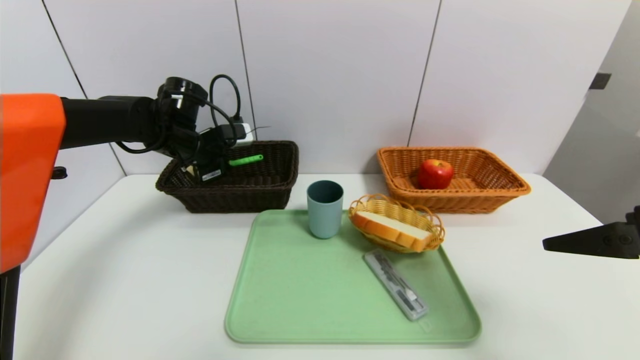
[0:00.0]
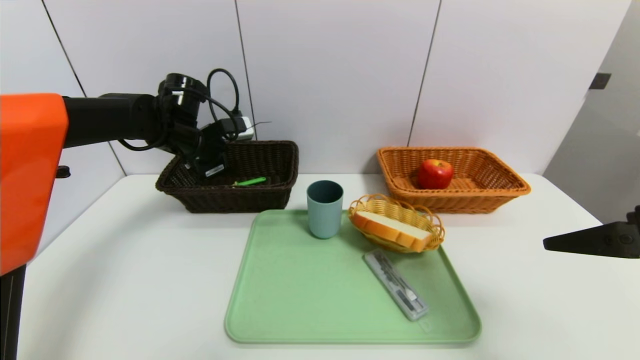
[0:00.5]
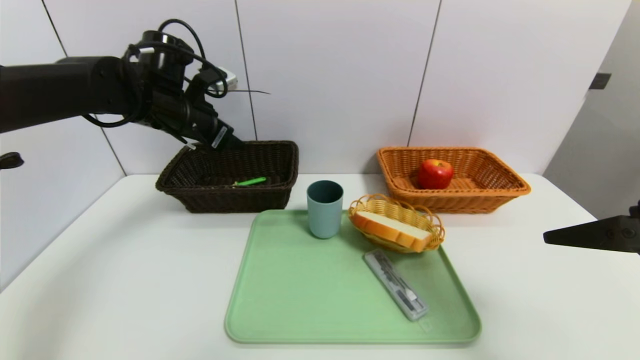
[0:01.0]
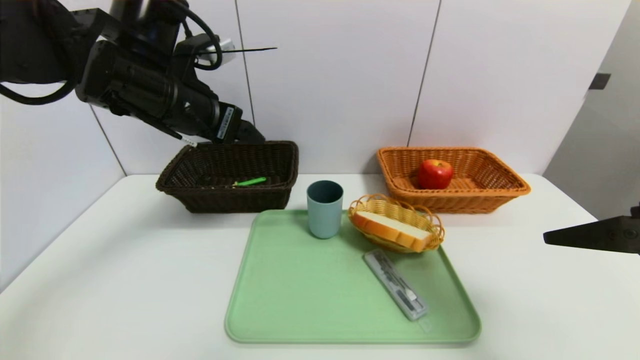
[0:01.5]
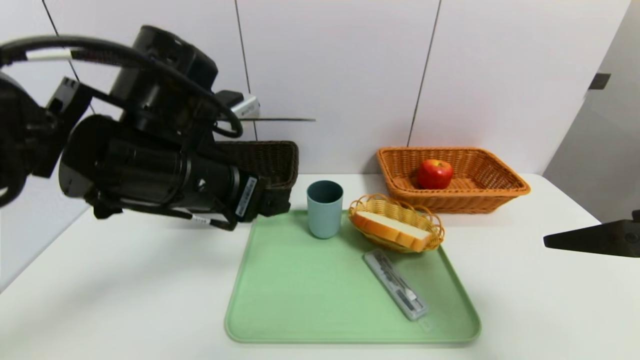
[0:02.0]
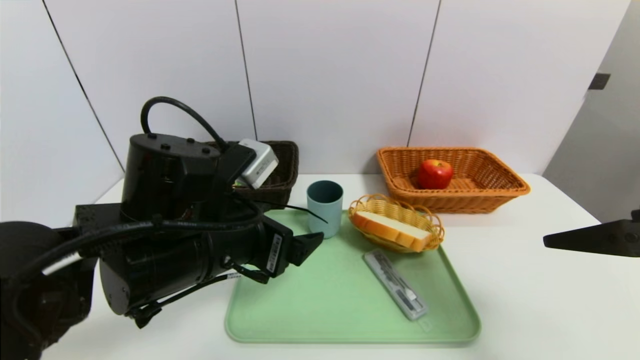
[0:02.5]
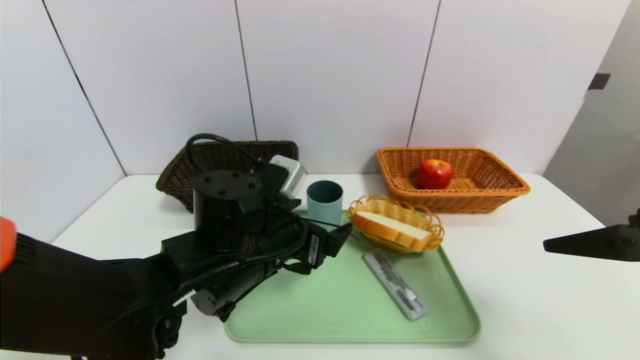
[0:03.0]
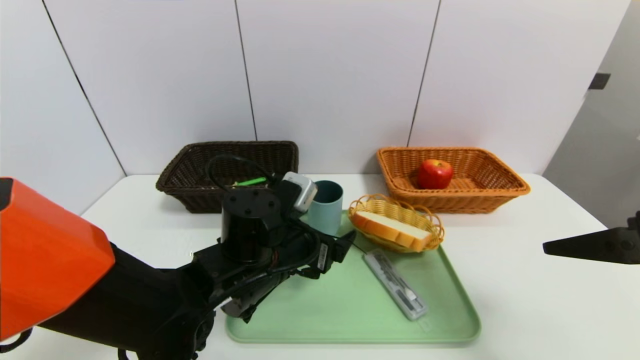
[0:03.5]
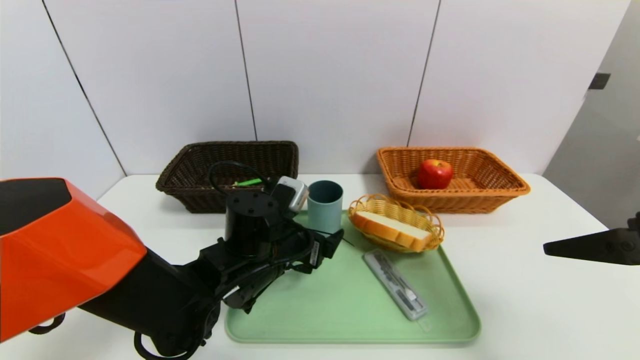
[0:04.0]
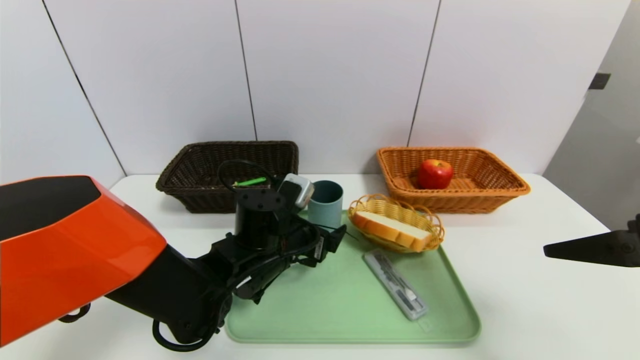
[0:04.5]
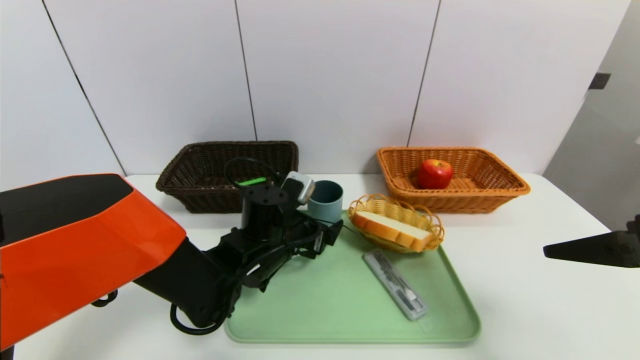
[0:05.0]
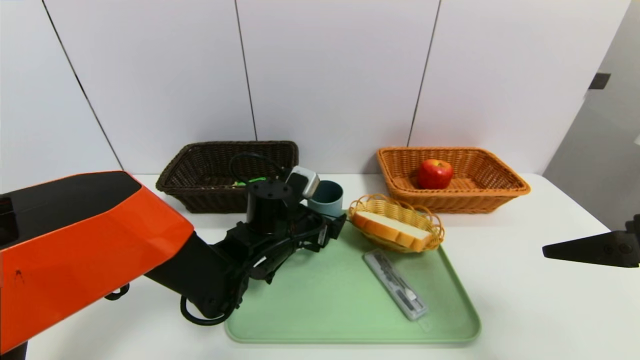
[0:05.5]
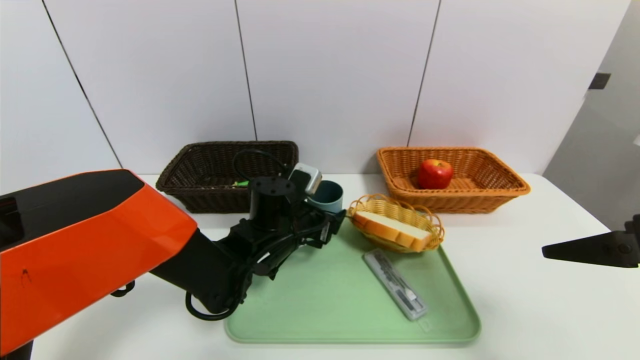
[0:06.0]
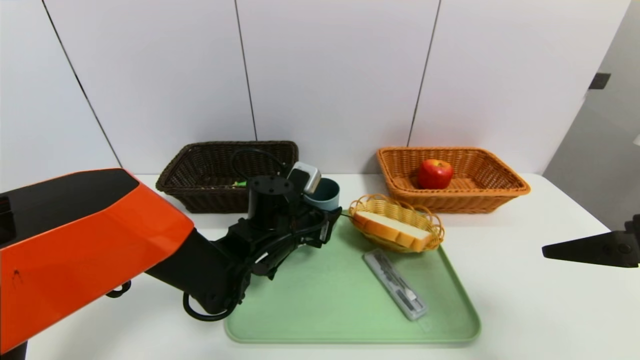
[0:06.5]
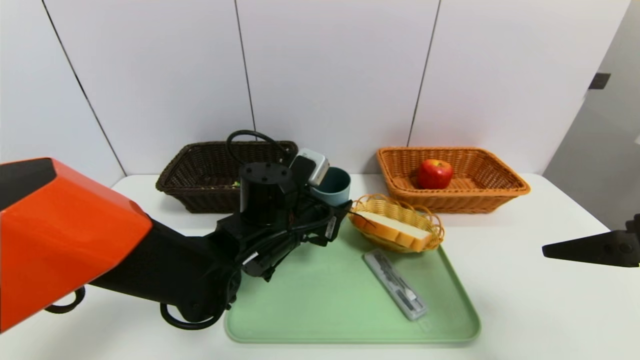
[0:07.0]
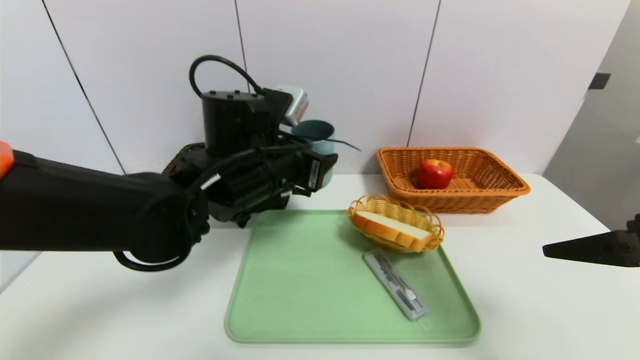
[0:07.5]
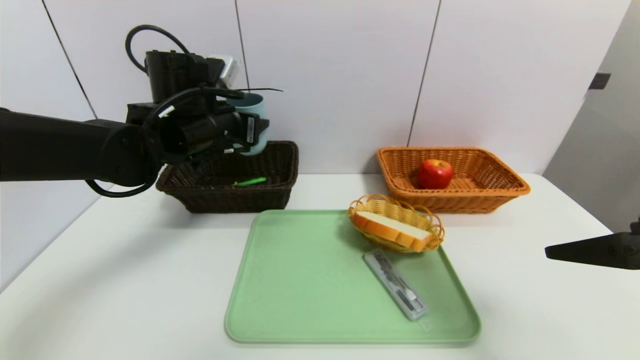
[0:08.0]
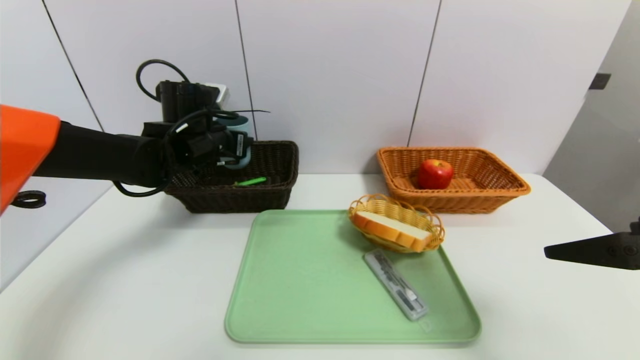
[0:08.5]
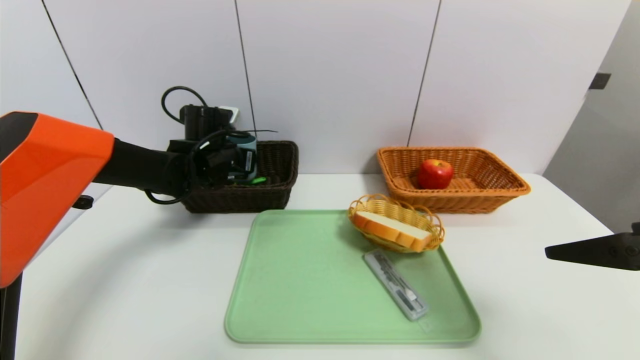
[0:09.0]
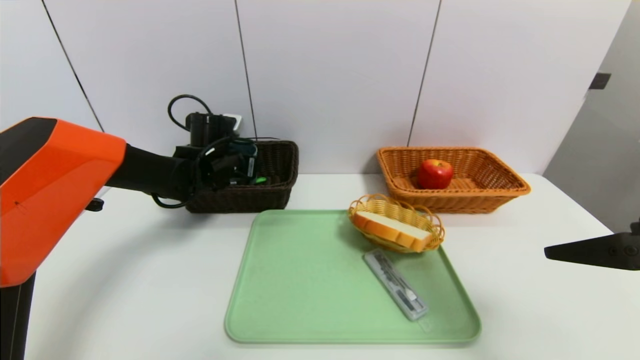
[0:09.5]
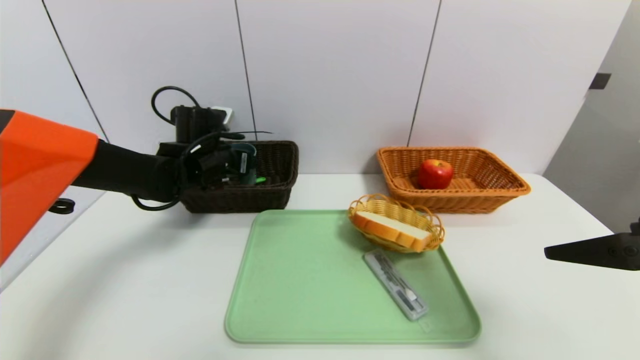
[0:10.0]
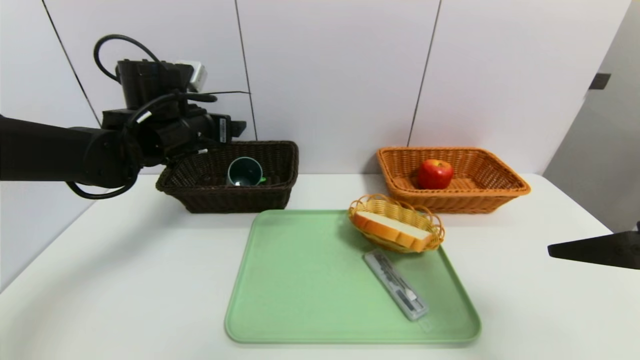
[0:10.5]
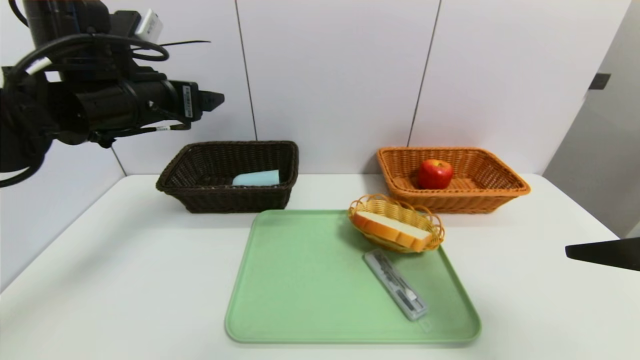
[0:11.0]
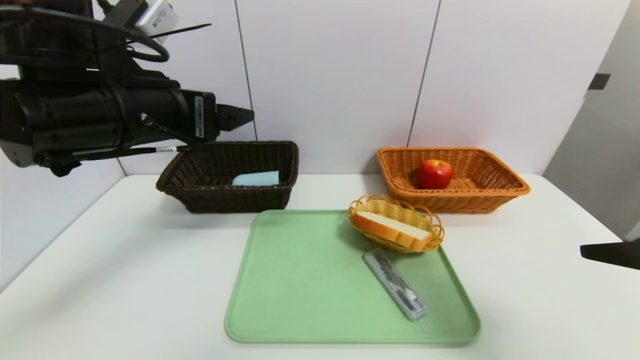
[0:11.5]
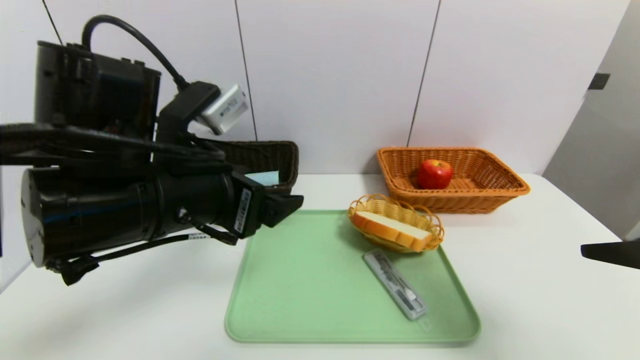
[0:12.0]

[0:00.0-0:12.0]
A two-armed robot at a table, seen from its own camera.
Task of the whole recording: place the food in the right basket with the right gripper, and place the non food items in the left basket with the left gripper.
Step, 0:01.5 to 0:10.0: Grasp the blue cup and put it in the left basket.
0:00.0 to 0:02.0: The left gripper goes some 25 cm backward and to the right, and opens its fingers.
0:02.0 to 0:04.0: The left gripper goes some 15 cm downward.
0:04.0 to 0:06.0: The left gripper ends up some 5 cm from where it was.
0:06.0 to 0:08.0: The left gripper heads upward and to the left, covering approximately 20 cm.
0:08.0 to 0:10.0: The left gripper shifts approximately 10 cm downward and forward.
0:10.0 to 0:12.0: The left gripper heads backward, covering roughly 25 cm.

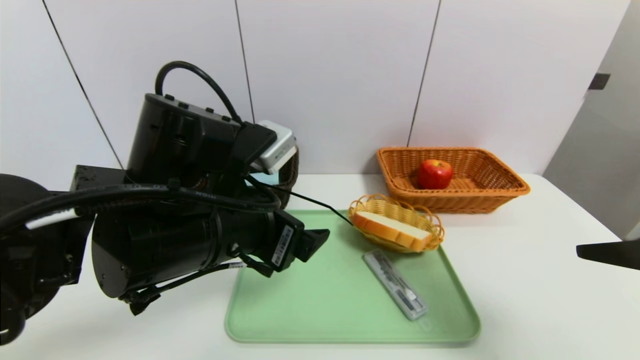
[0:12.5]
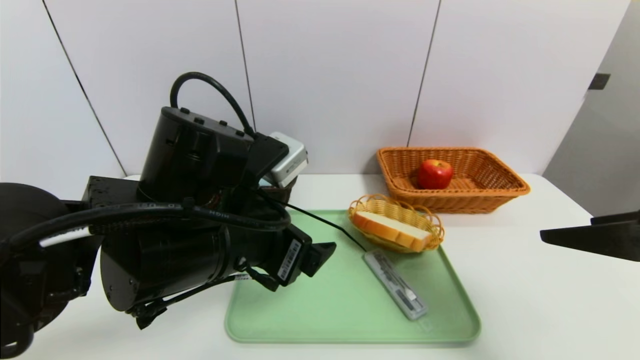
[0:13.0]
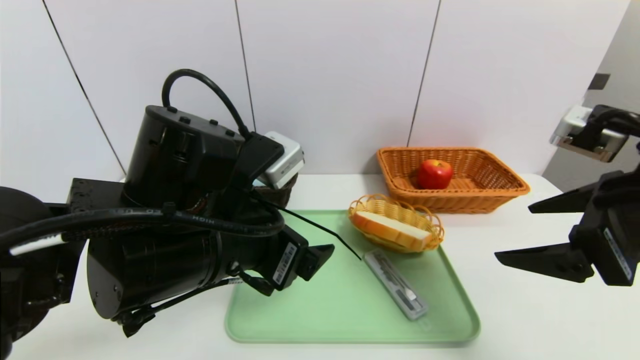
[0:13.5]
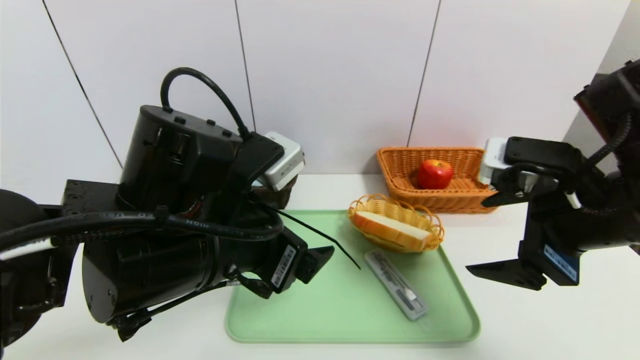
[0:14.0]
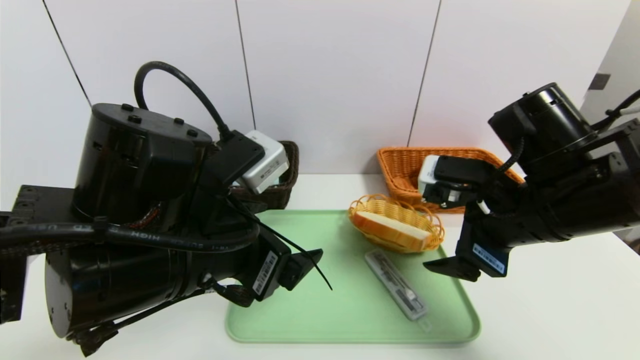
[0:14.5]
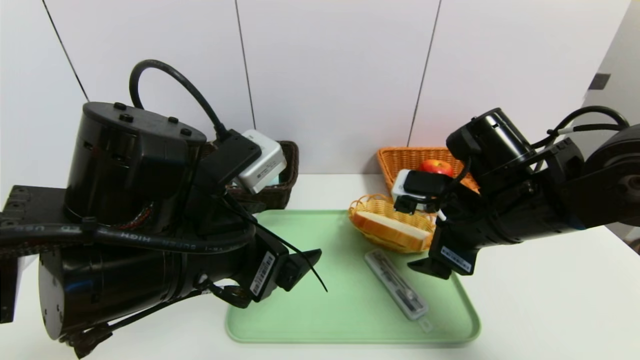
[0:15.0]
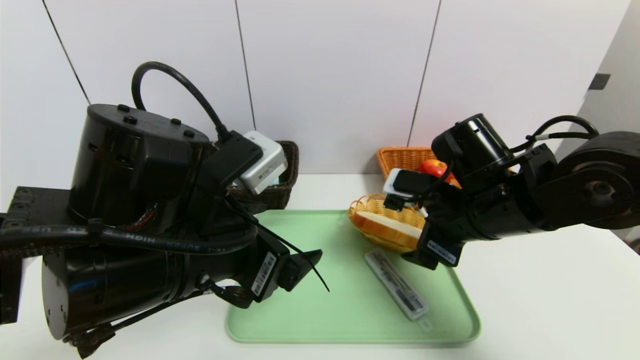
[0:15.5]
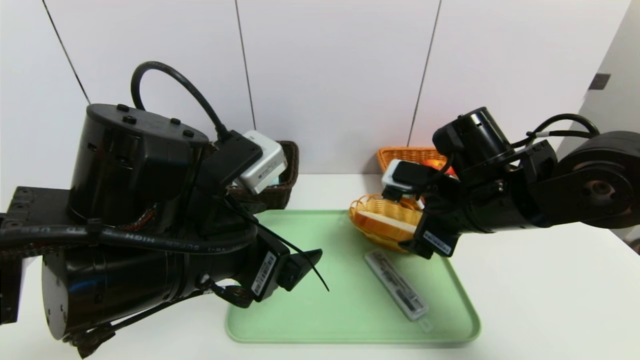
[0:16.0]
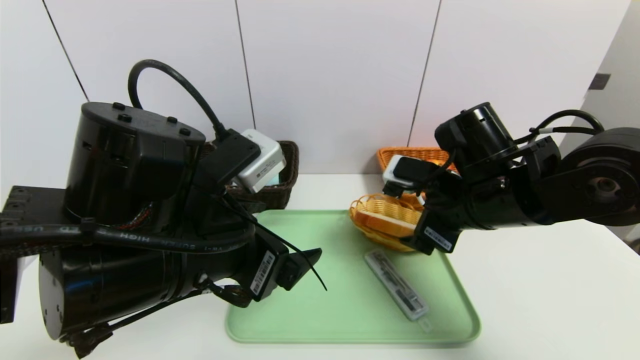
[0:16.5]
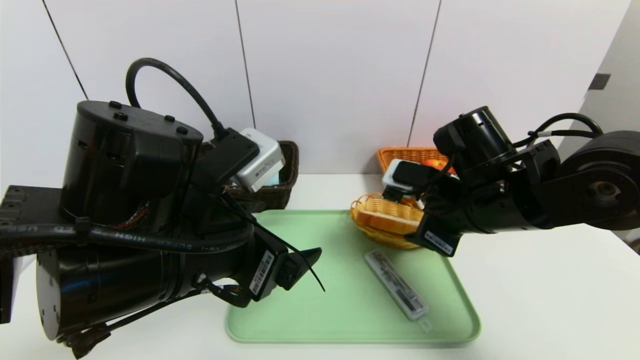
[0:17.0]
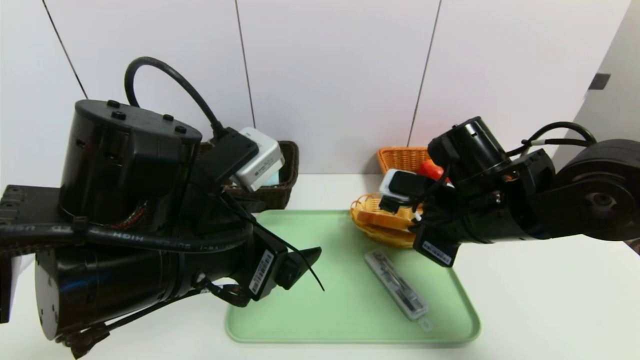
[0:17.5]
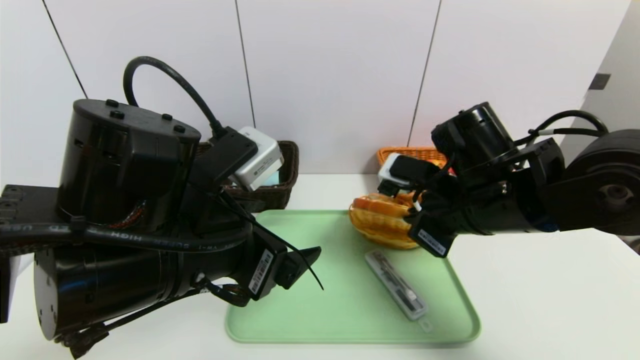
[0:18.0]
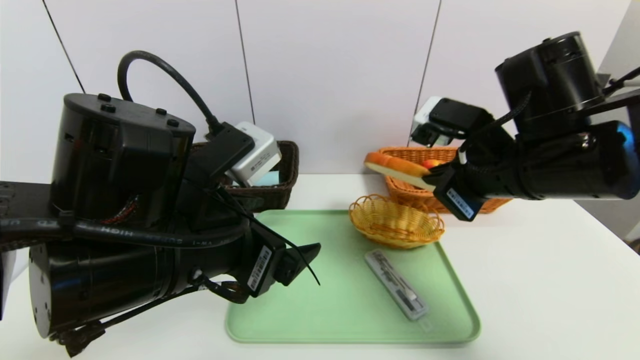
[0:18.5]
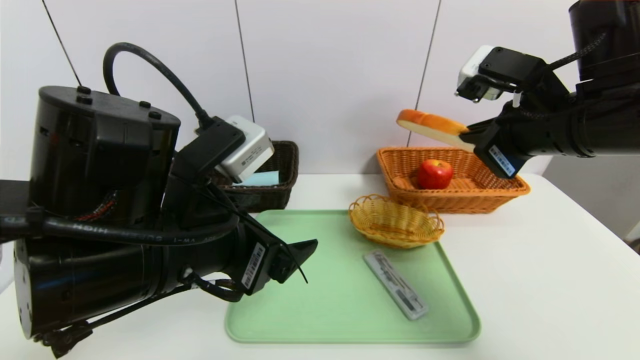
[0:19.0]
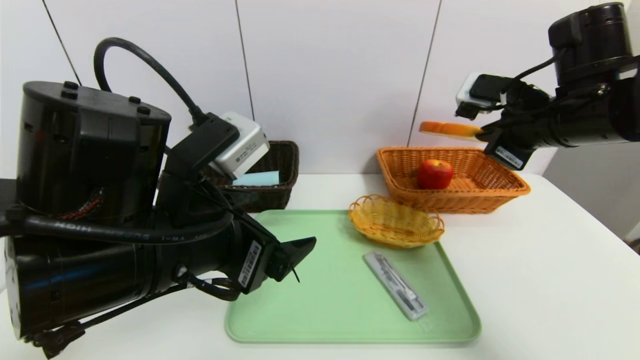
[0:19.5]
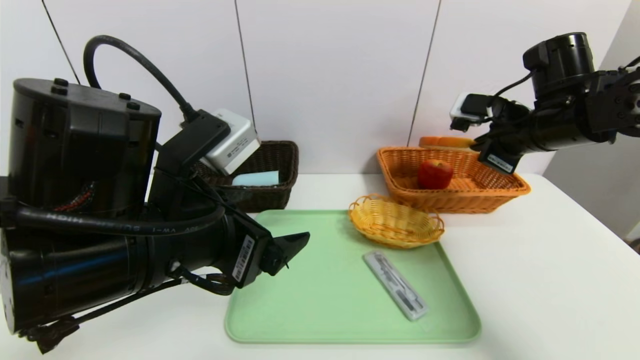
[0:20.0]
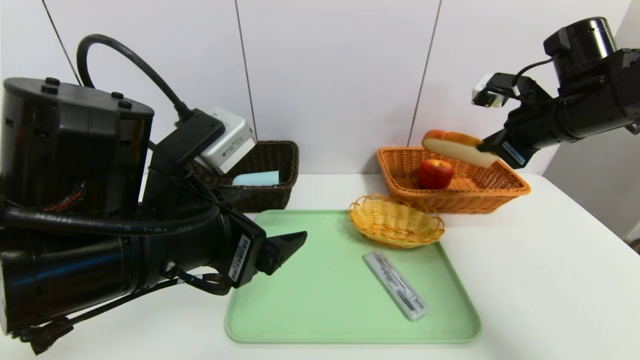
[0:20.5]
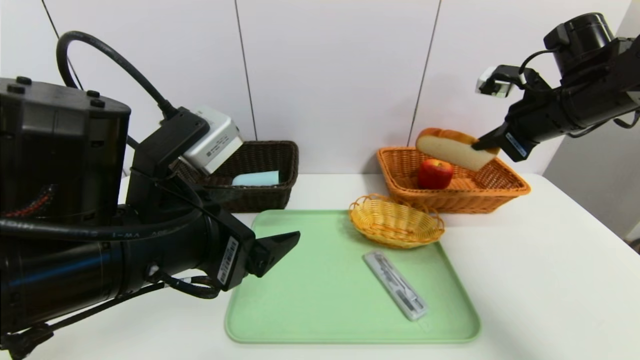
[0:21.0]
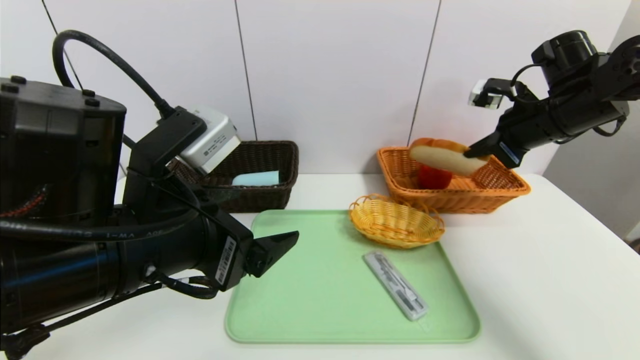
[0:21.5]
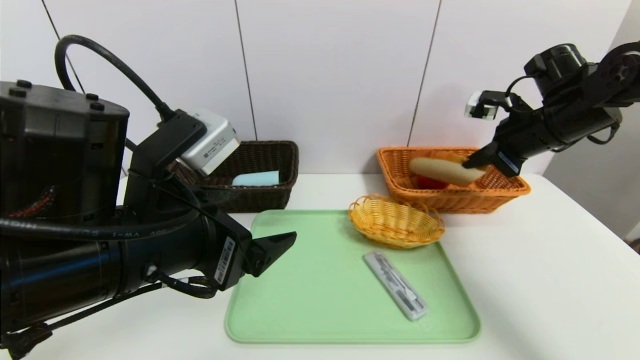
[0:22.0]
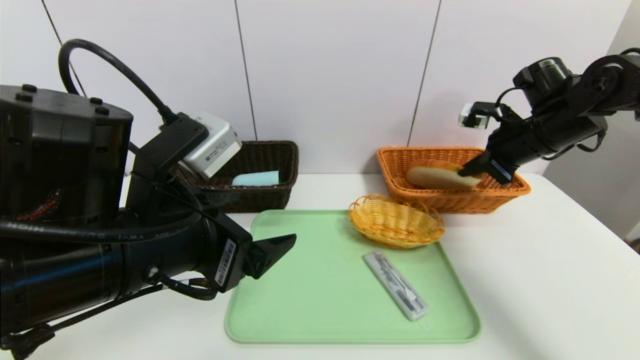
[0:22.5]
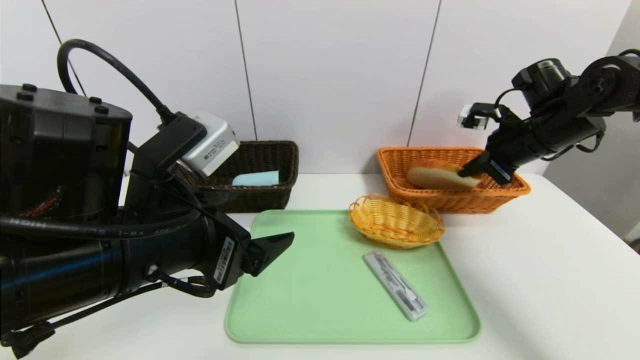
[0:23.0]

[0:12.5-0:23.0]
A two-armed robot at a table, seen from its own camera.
Task of the whole recording: place the food in the right basket with the right gripper, and place the non food items in the left basket with the left gripper.
0:12.5 to 0:14.5: The right gripper goes approximately 15 cm forward, to the left and downward.
0:14.5 to 0:16.5: The right gripper changes place by approximately 5 cm.
0:16.5 to 0:19.0: The right gripper heads upward and to the right, covering roughly 10 cm, and closes.
0:19.0 to 0:21.0: The right gripper shifts some 15 cm forward and to the right.
0:21.0 to 0:23.0: The right gripper moves roughly 5 cm.
